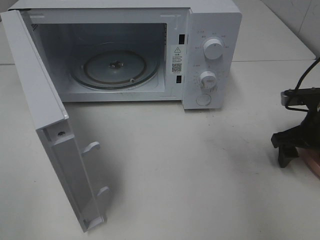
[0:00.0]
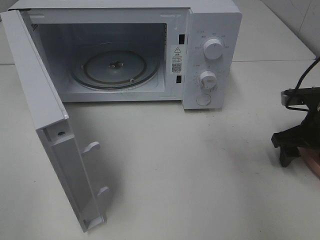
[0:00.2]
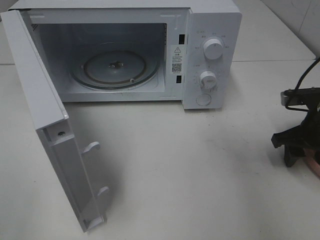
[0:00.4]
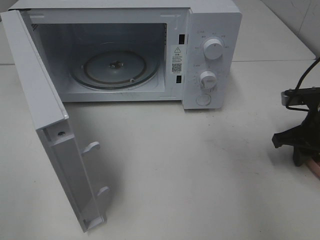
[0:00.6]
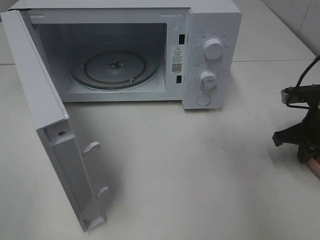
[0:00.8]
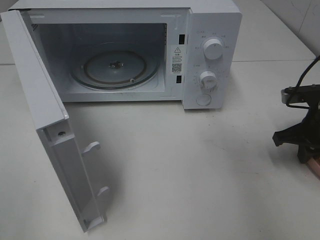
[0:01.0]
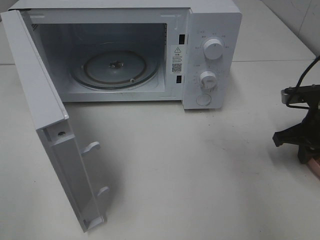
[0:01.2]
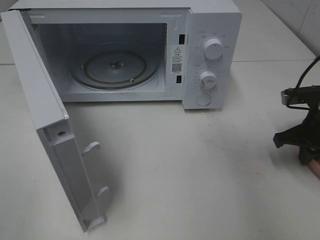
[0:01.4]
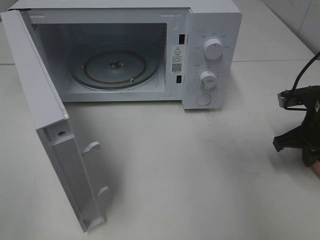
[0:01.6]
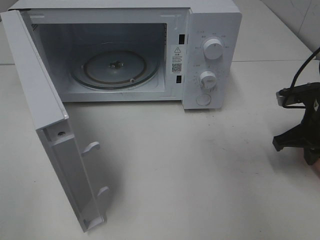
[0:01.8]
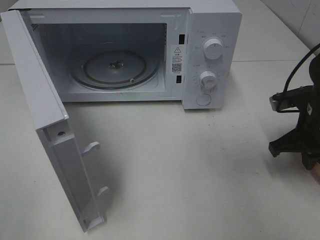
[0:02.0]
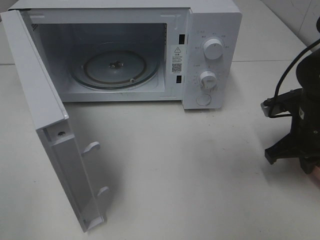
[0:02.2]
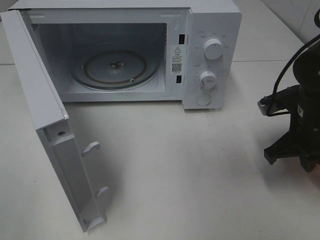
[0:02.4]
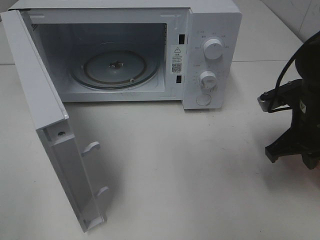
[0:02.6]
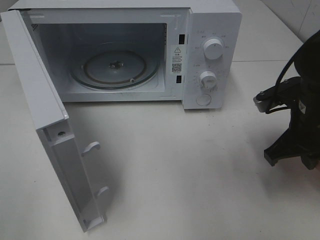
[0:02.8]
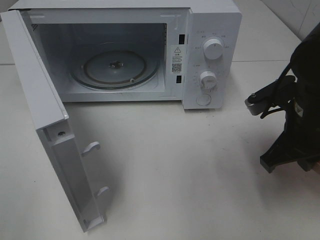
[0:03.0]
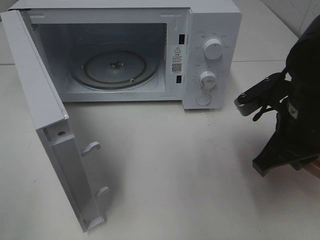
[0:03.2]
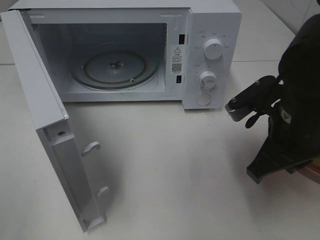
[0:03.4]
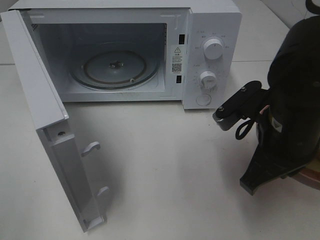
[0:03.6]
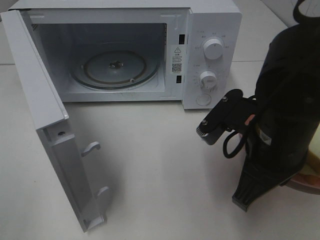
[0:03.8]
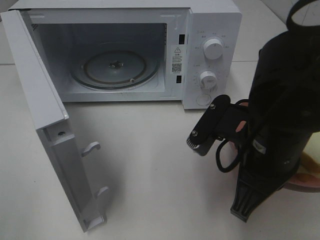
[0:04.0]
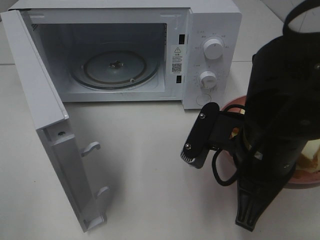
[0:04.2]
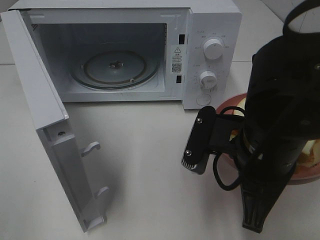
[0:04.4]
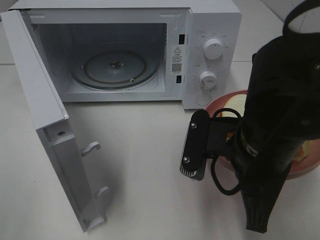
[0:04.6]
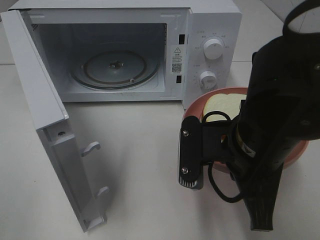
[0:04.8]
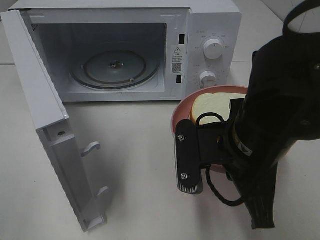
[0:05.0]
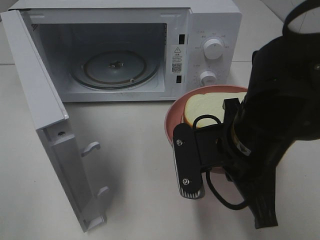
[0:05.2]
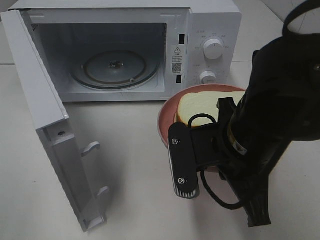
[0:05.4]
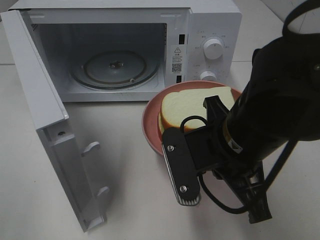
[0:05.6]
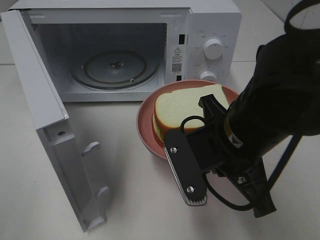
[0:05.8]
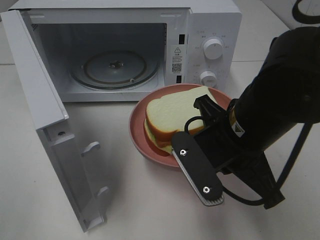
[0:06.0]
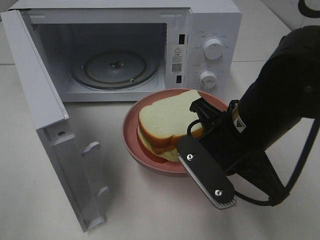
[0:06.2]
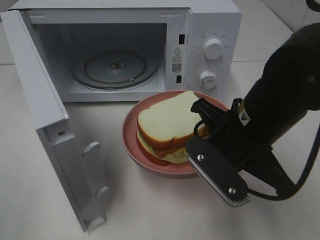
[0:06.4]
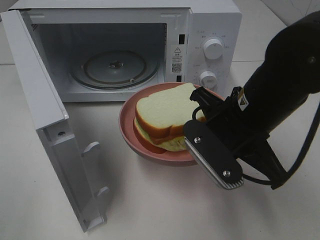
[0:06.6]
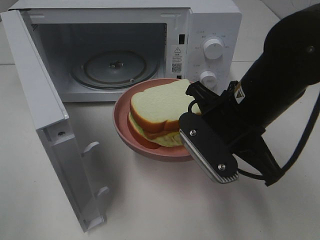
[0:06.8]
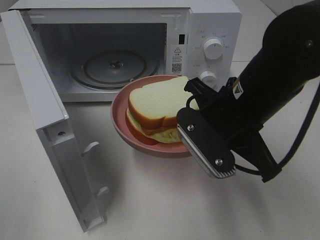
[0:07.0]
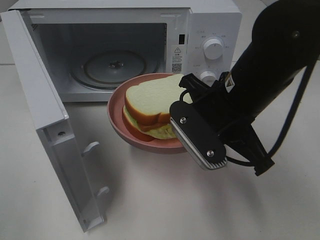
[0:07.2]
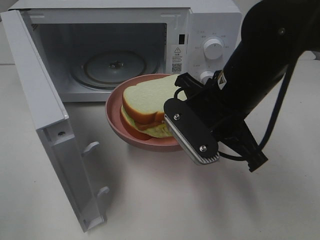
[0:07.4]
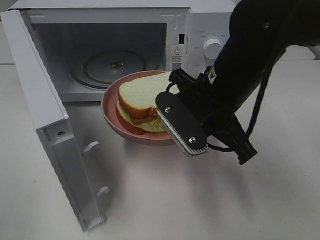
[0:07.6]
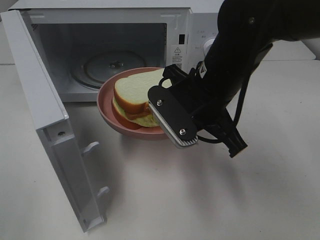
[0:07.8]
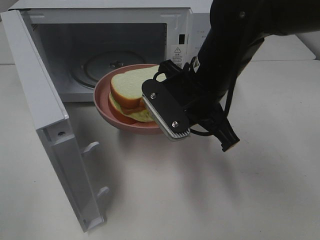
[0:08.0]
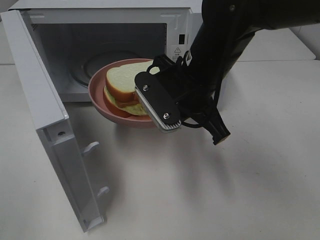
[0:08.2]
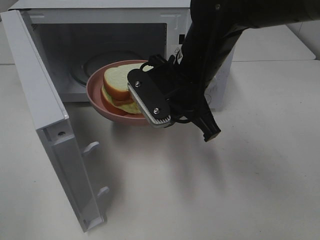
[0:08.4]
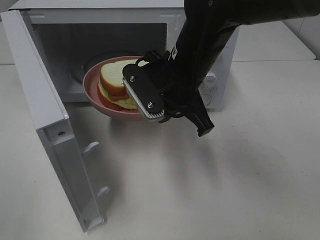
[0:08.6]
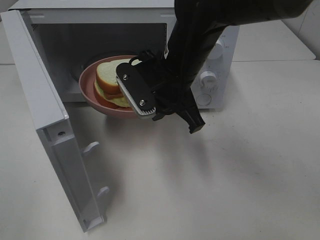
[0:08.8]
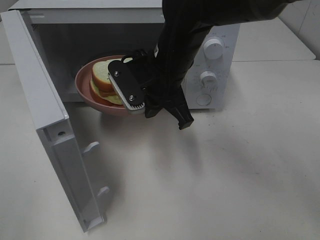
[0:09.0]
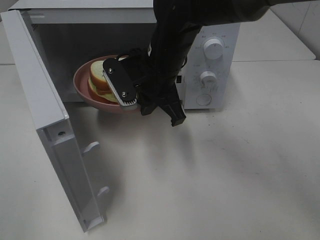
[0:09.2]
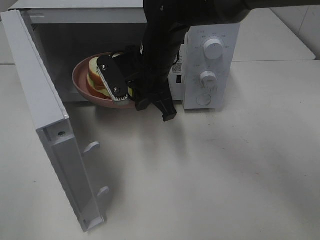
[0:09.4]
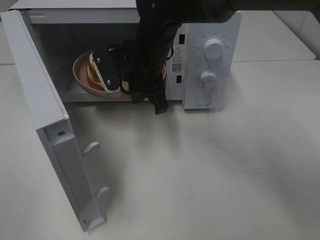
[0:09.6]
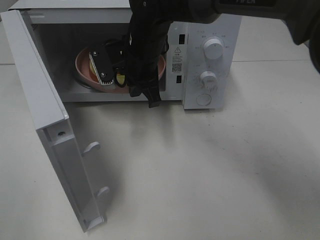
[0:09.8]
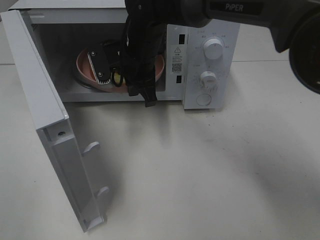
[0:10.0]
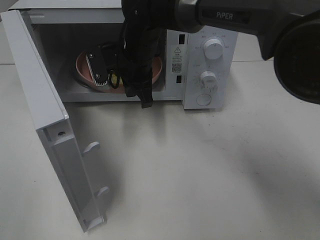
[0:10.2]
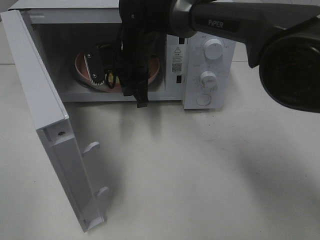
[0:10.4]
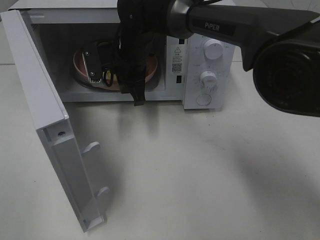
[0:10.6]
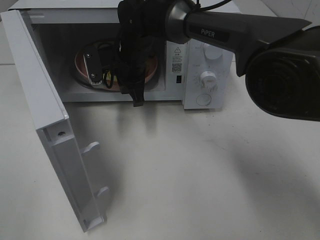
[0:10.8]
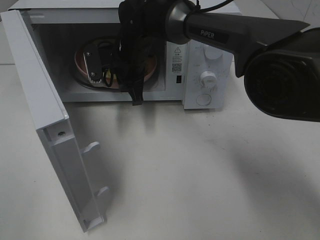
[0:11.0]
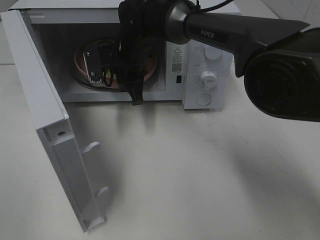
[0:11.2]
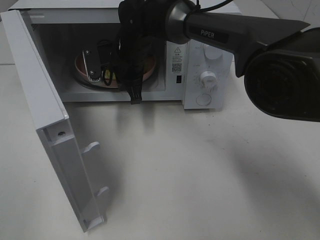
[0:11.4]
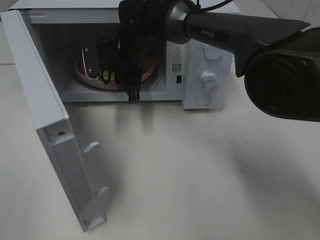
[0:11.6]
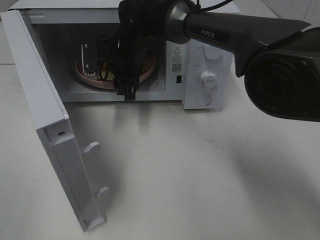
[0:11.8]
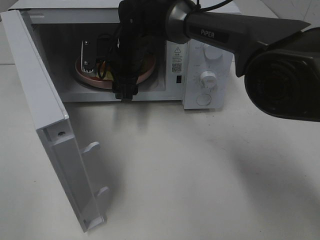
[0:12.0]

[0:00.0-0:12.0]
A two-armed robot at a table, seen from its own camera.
Task of the whole recording: Heat Sandwich.
Step, 0:00.0 to 0:02.0: Right hand: grab the plate with the sandwich.
0:00.0 to 0:01.6: The right gripper closes its fingers.
0:01.6 to 0:03.0: The right gripper is displaced to the left, upward and backward by roughly 10 cm.
0:03.0 to 0:04.4: The right gripper shifts roughly 10 cm to the left and backward.
0:06.0 to 0:07.6: The right gripper is displaced forward by about 5 cm.
0:07.6 to 0:09.0: The right gripper is displaced forward and to the left by some 10 cm.
0:09.0 to 0:10.4: The right gripper heads forward and to the left, covering approximately 10 cm.
0:10.4 to 0:12.0: The right gripper opens up.

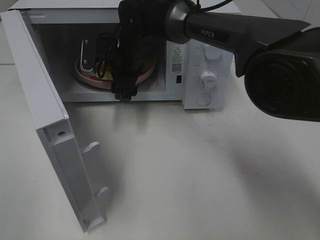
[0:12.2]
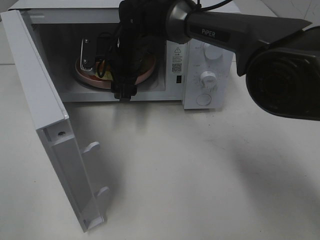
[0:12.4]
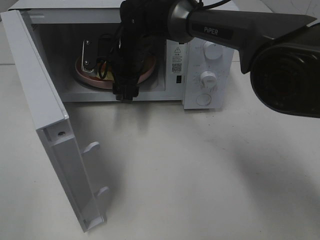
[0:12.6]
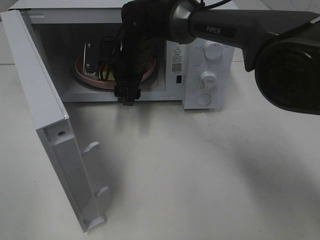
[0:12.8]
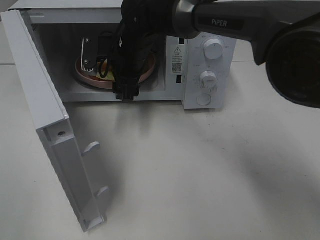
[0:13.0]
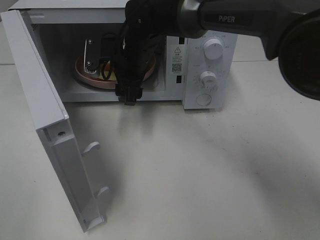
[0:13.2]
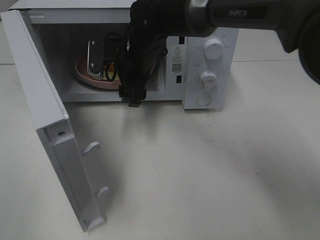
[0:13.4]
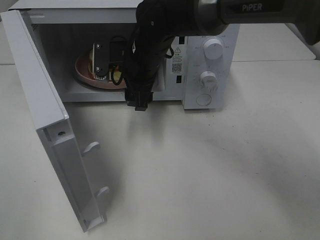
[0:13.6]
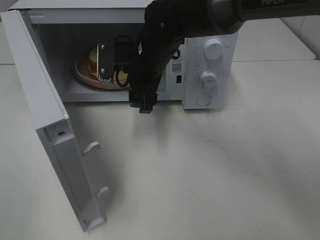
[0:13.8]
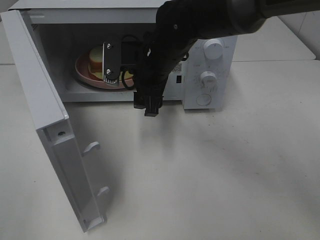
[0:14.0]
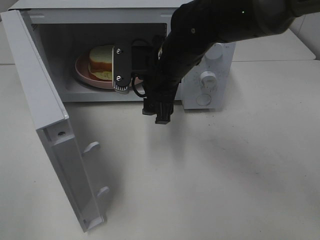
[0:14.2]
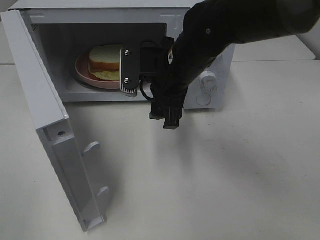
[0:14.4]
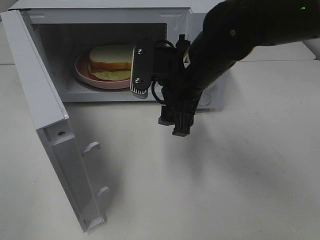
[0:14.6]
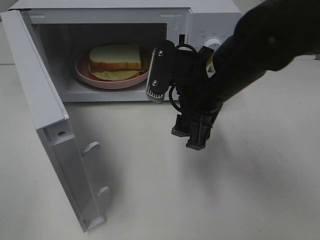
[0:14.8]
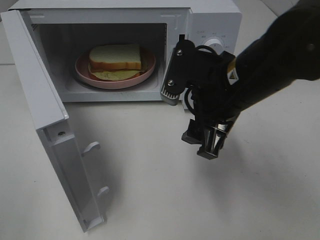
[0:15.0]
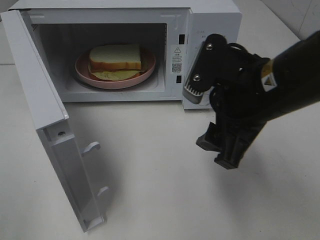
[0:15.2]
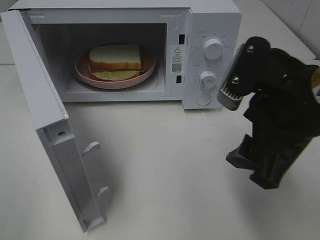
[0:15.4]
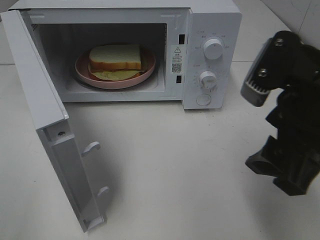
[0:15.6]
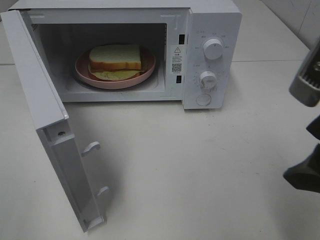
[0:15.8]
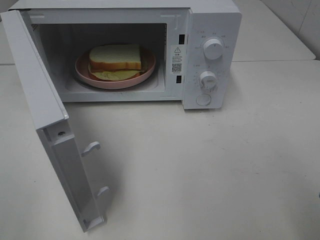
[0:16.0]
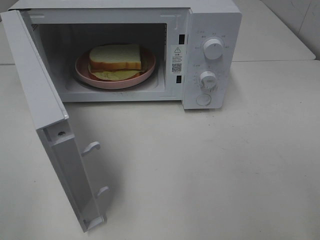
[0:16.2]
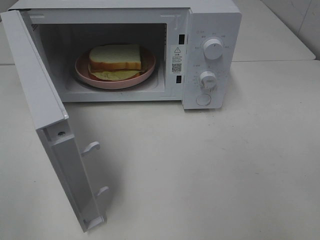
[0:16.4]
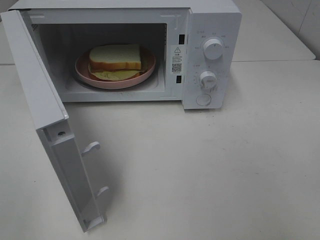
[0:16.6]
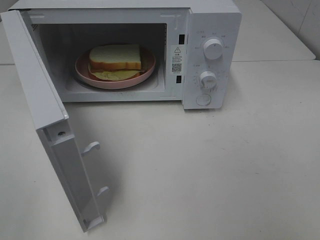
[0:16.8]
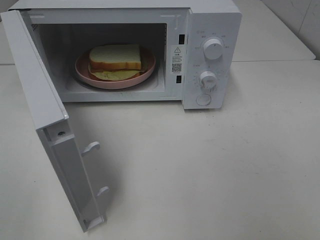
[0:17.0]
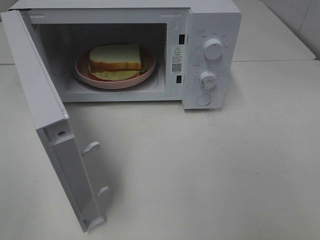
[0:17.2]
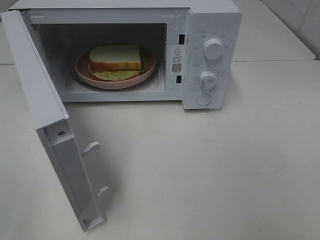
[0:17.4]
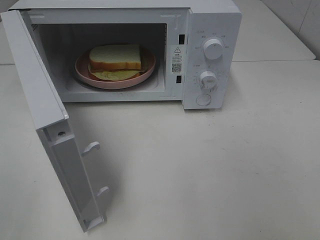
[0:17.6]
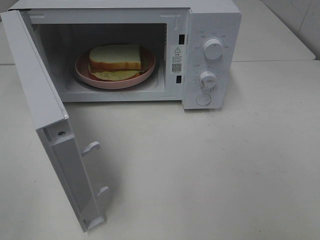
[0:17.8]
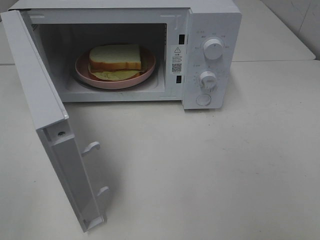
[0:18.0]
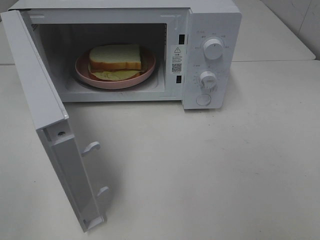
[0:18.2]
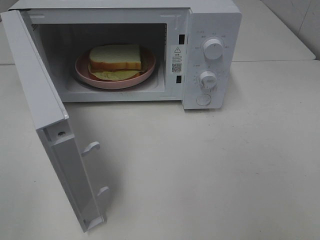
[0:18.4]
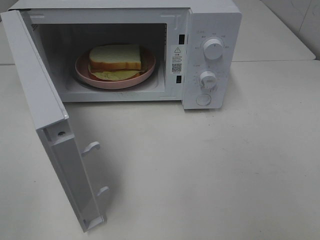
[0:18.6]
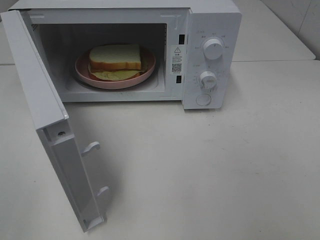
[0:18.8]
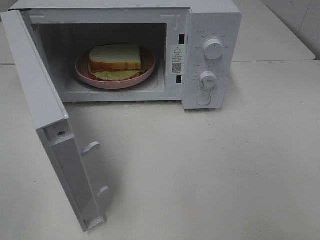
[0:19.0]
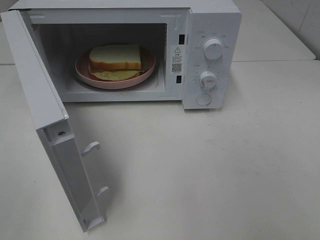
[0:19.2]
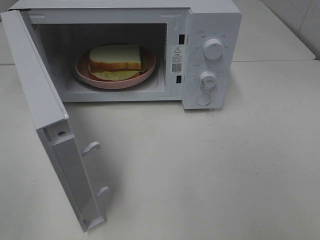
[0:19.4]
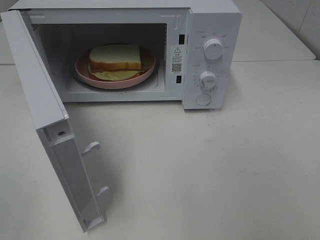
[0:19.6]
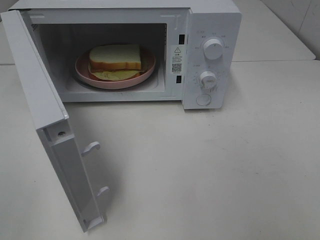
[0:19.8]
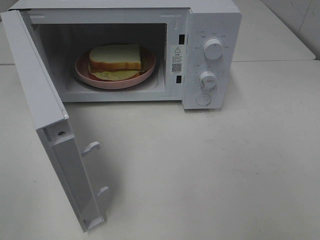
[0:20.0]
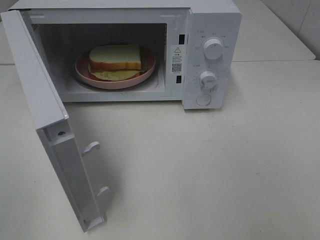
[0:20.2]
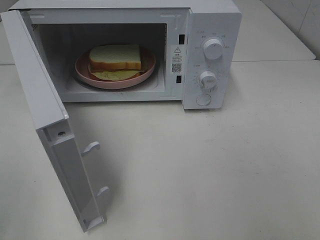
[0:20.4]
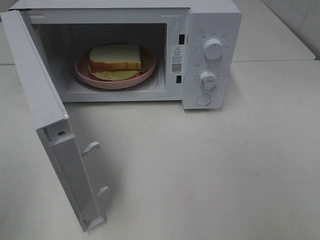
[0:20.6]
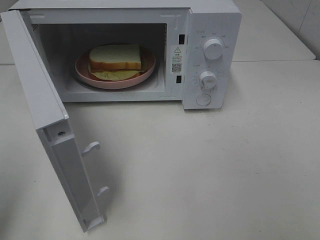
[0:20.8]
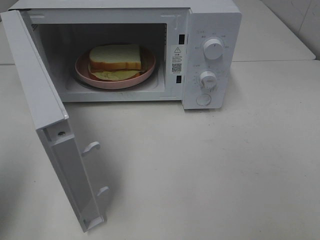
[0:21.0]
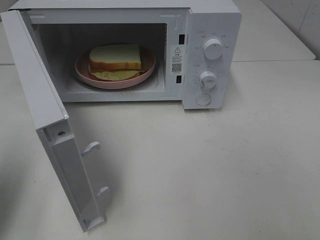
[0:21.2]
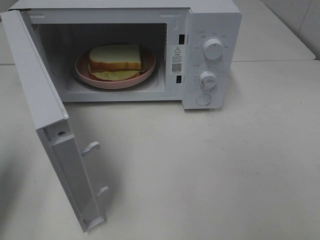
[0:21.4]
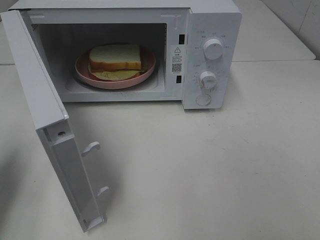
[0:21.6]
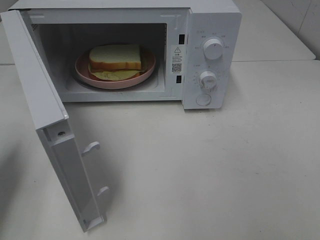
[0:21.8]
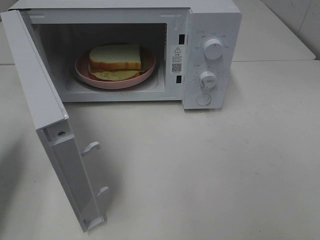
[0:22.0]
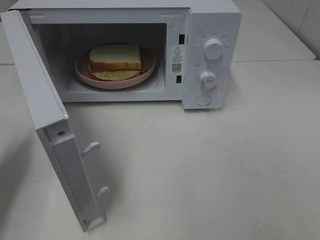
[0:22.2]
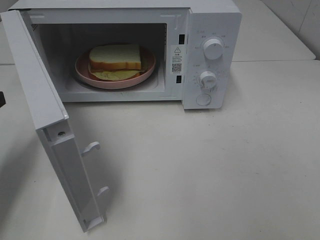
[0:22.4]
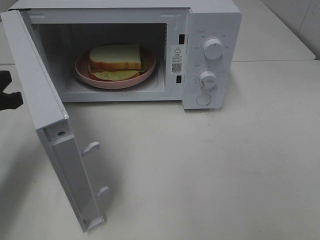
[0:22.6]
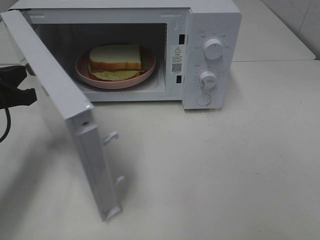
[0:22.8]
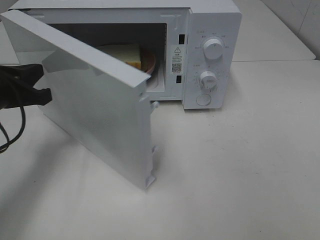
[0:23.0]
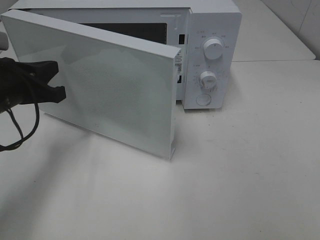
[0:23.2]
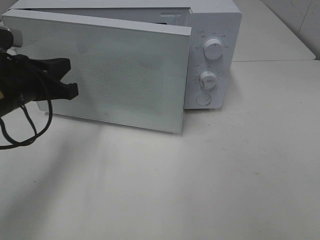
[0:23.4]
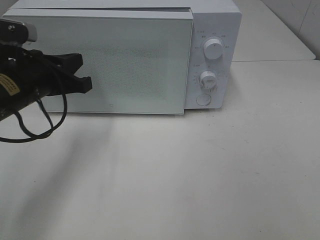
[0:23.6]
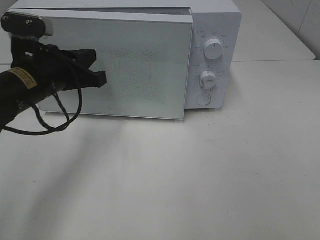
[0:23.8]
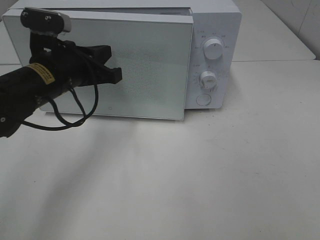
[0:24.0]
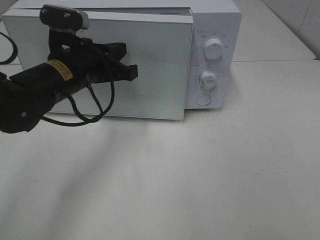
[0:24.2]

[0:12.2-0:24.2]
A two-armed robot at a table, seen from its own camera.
Task of the whole recording: Heat Sandwich.
0:12.2 to 0:13.8: The right gripper is displaced backward by about 5 cm.
0:13.8 to 0:15.2: The right gripper heads backward and to the right, covering some 20 cm.
0:15.2 to 0:16.6: The right gripper shifts approximately 20 cm backward and to the right.
0:19.8 to 0:21.2: The left gripper moves forward, approximately 15 cm, and closes.
0:21.2 to 0:22.6: The left gripper goes some 15 cm forward and downward.
0:22.6 to 0:24.2: The left gripper moves to the right, roughly 15 cm.
